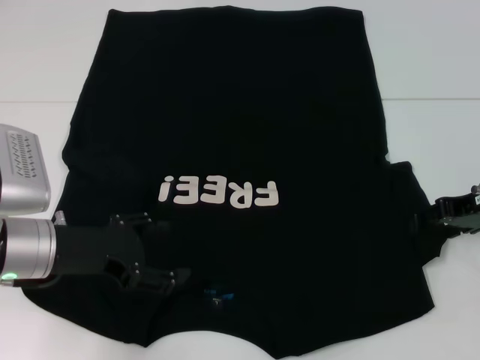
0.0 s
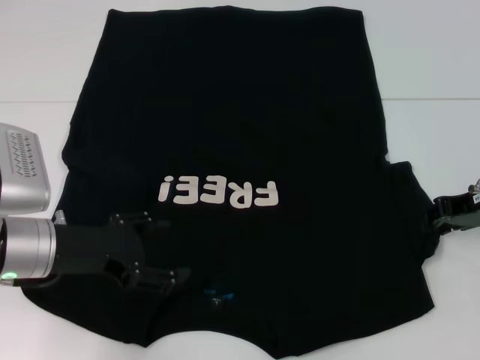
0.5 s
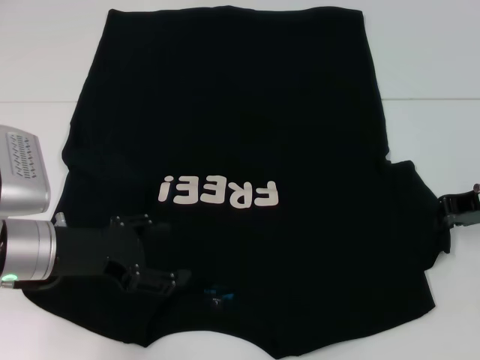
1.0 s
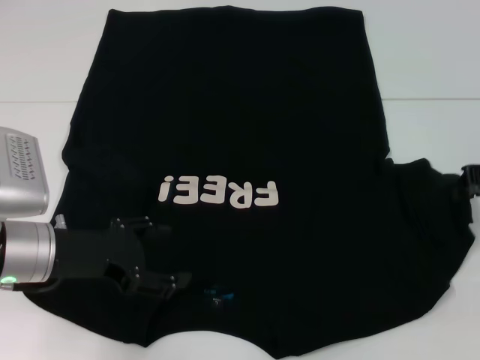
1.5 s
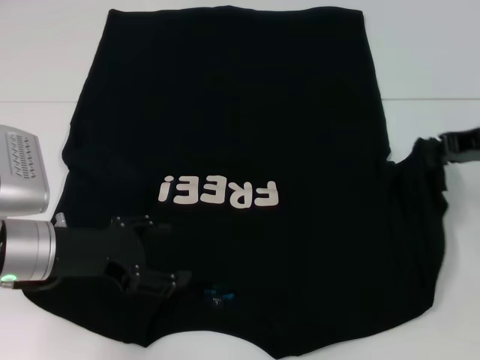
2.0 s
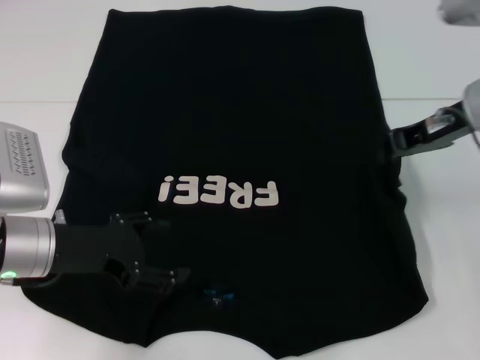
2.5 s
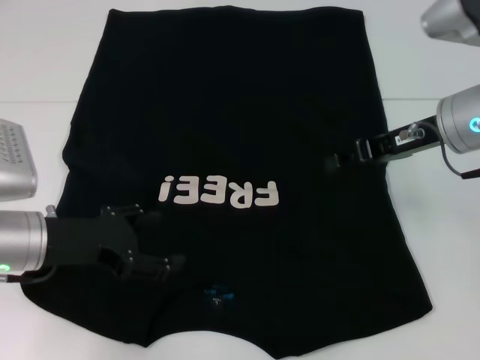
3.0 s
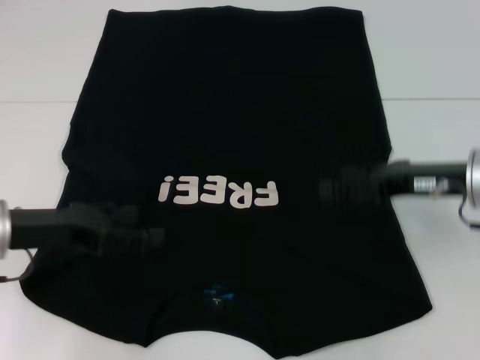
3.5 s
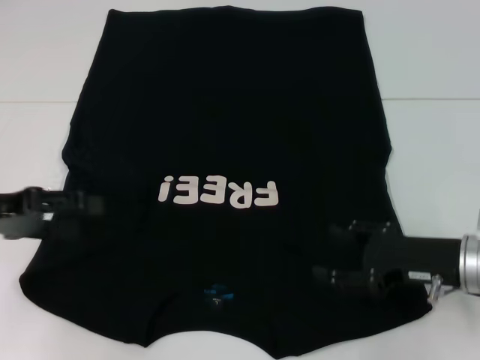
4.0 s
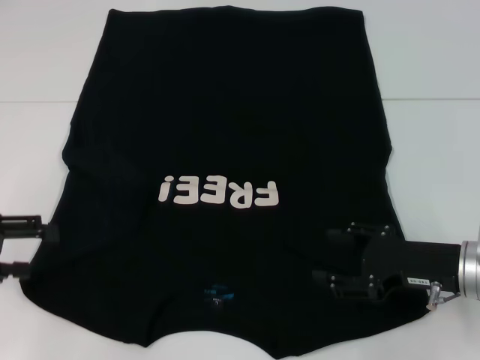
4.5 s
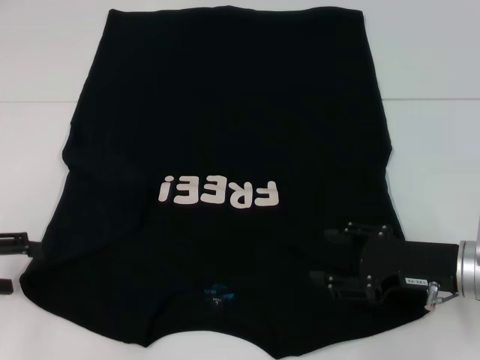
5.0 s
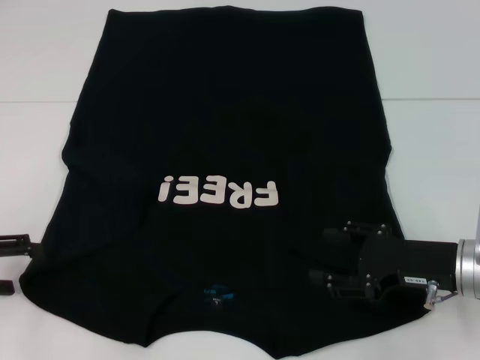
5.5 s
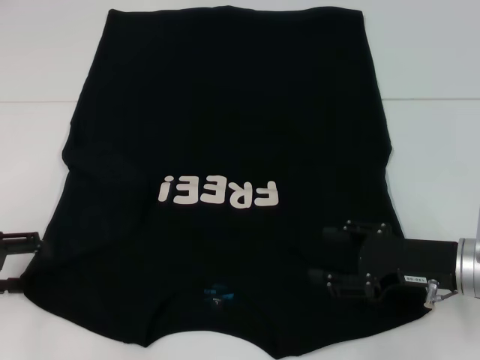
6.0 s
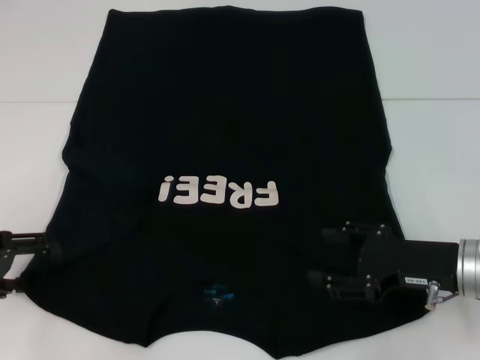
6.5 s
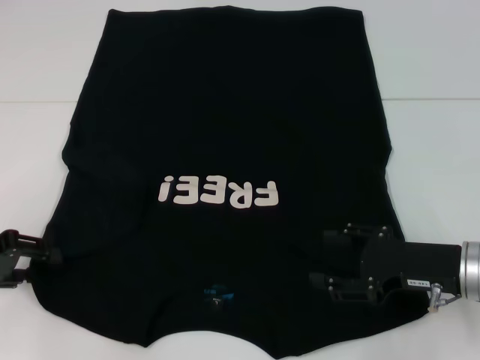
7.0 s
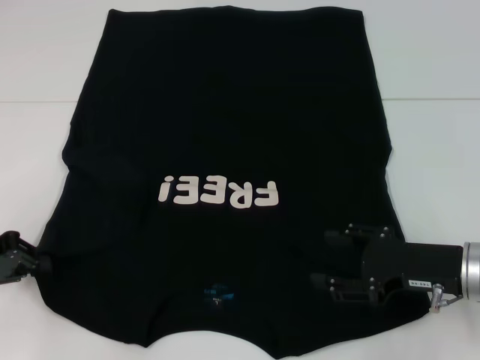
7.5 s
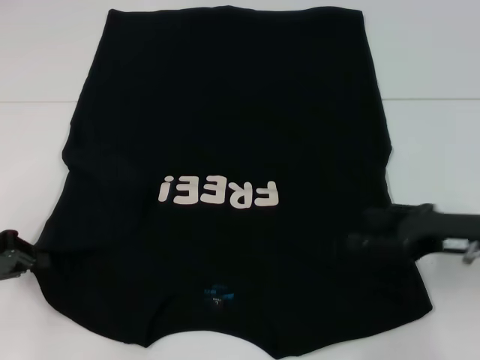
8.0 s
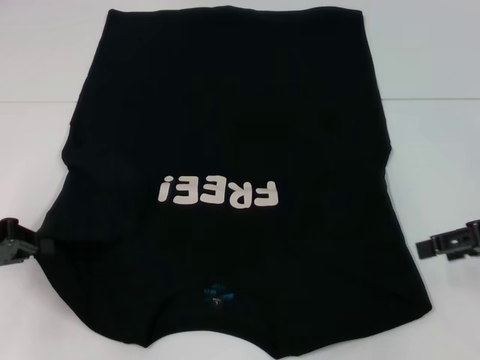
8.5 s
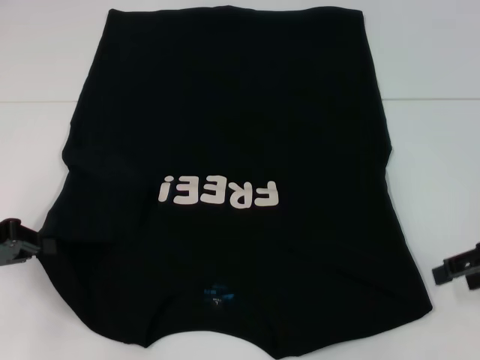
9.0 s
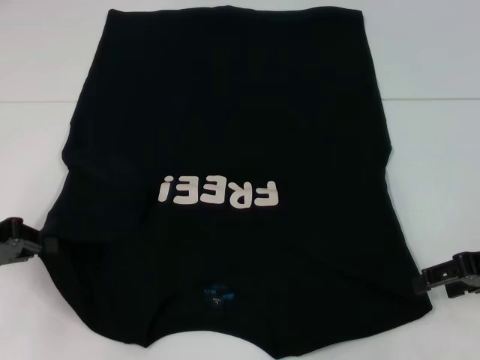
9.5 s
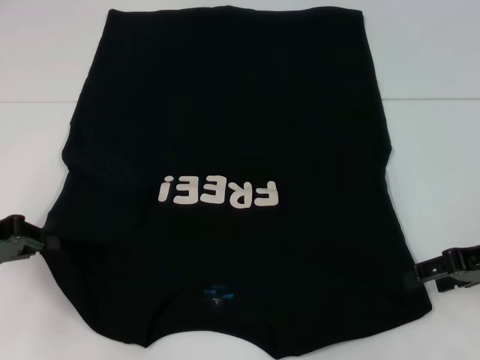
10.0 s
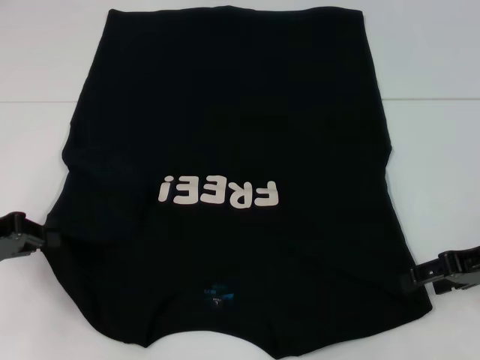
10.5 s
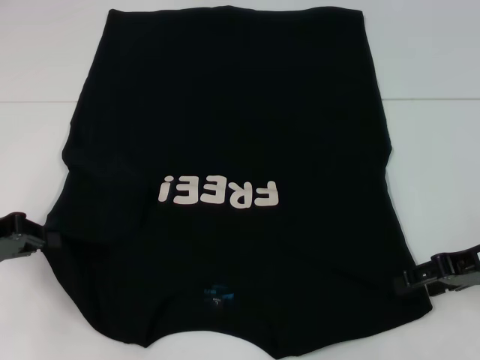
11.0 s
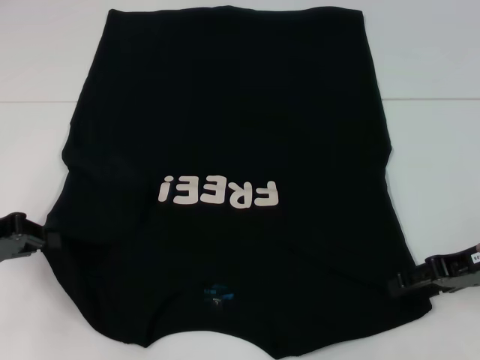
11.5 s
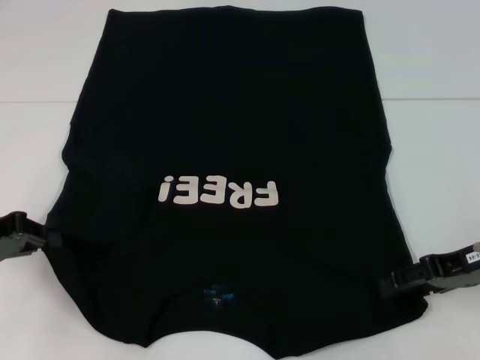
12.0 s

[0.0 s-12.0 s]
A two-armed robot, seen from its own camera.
Step, 0.0 to 3.0 s: Fold the bottom right sleeve with your right hand.
Step, 3.5 to 7.5 s: Grab the bottom left corner with your left hand.
0.0 to 2.0 s: The right gripper moves upward, about 5 cm, and closes up.
2.0 to 4.0 s: The right gripper shifts roughly 15 cm downward and backward, and opens its fingers. The left gripper goes some 10 cm to the left and upward.
4.0 to 6.0 s: The left gripper moves about 5 cm.
6.0 to 8.0 s: The left gripper closes.
10.0 to 12.0 s: The grippers stay close to where they were, moving slightly.

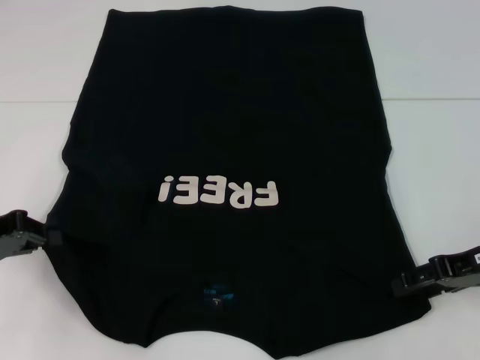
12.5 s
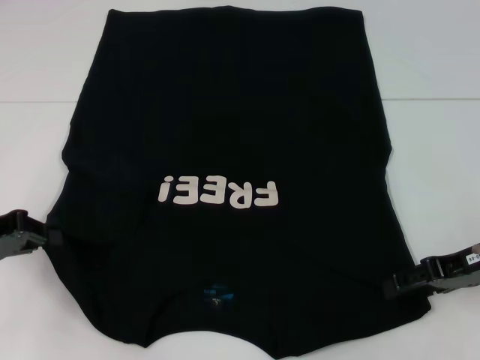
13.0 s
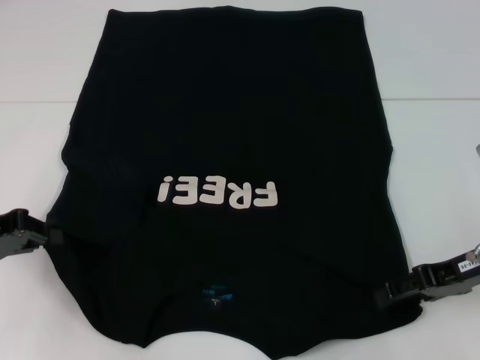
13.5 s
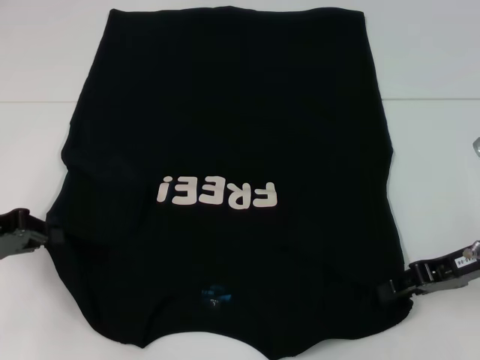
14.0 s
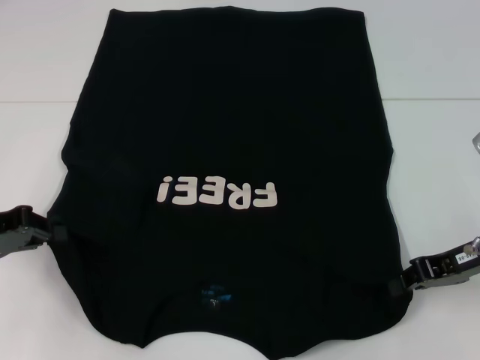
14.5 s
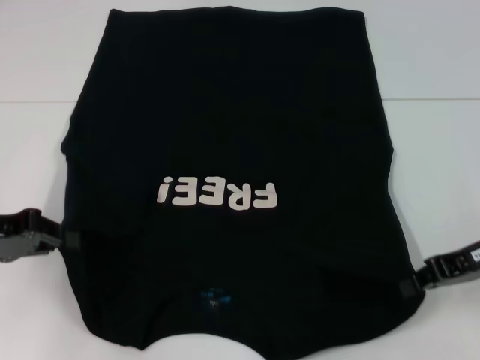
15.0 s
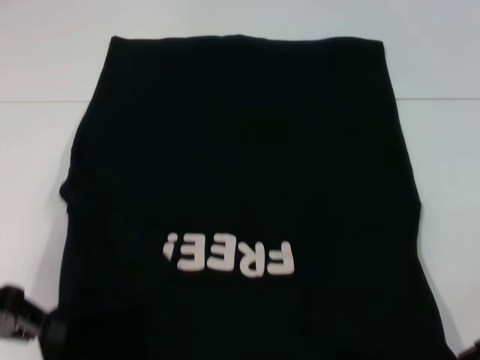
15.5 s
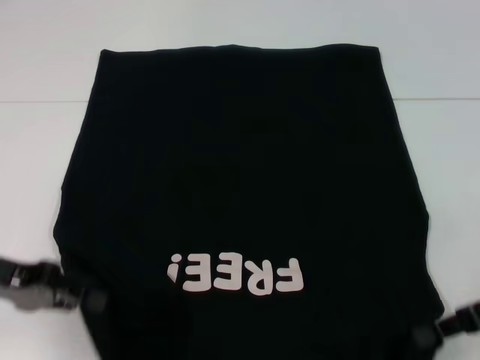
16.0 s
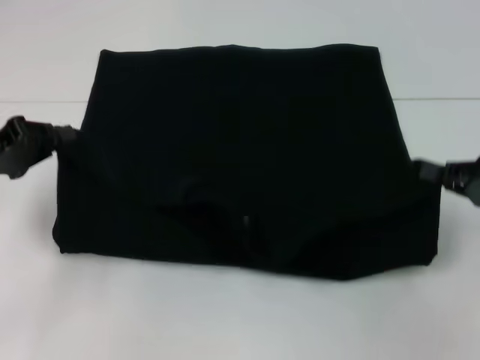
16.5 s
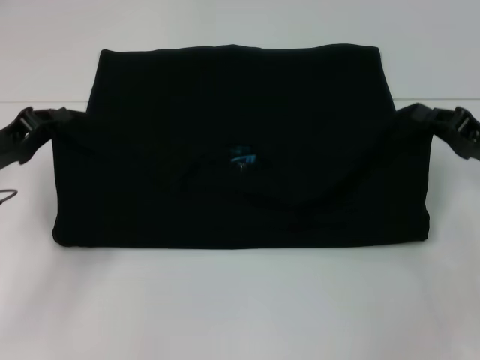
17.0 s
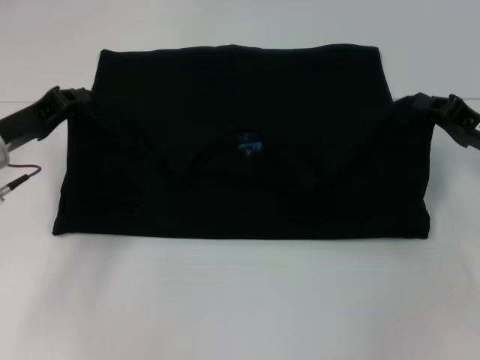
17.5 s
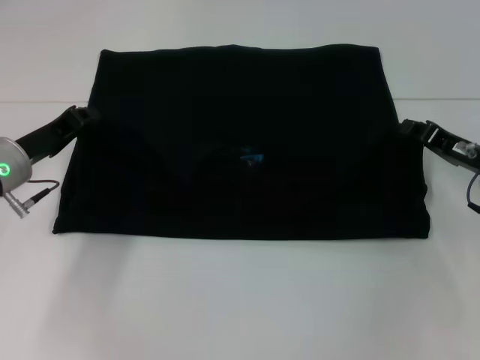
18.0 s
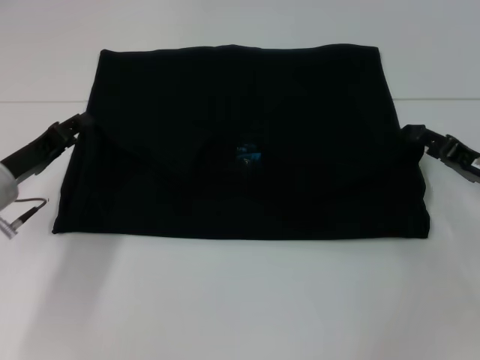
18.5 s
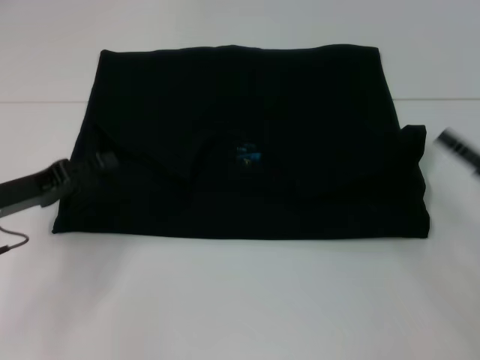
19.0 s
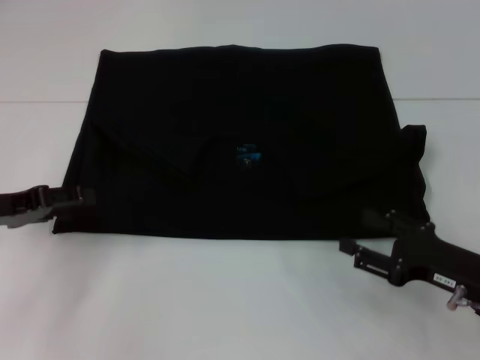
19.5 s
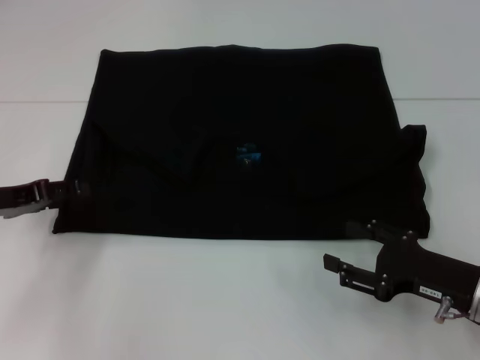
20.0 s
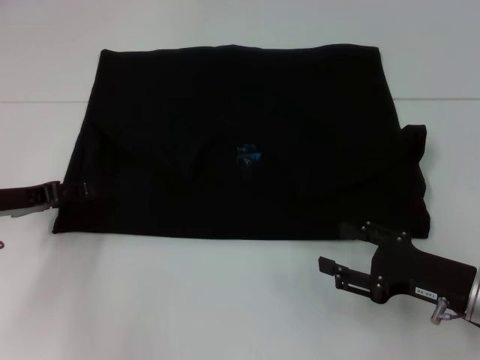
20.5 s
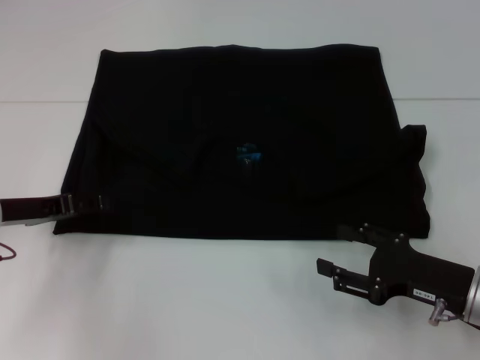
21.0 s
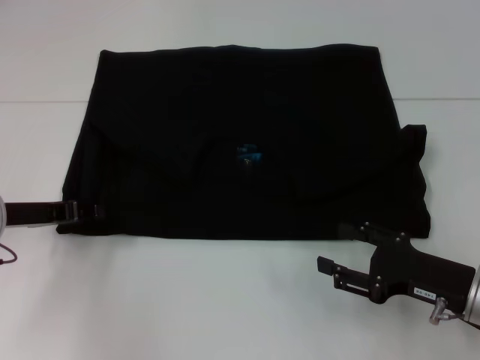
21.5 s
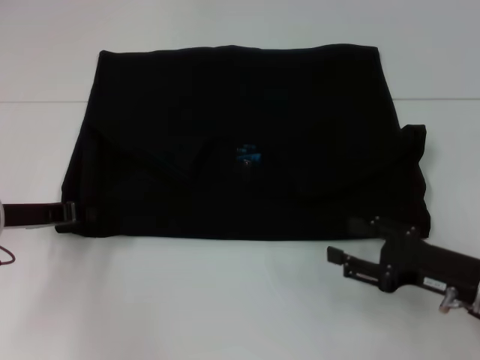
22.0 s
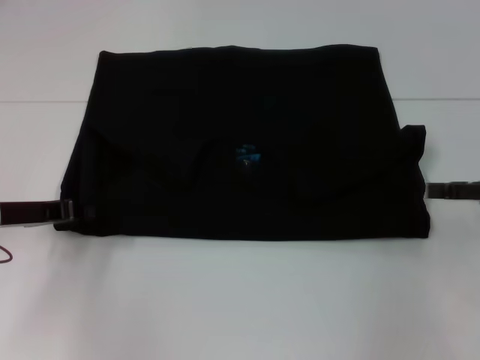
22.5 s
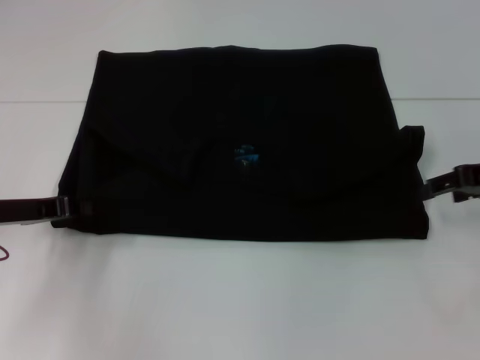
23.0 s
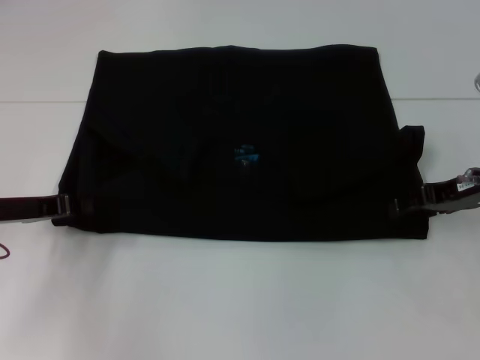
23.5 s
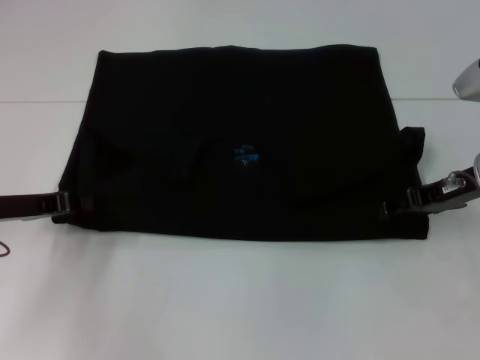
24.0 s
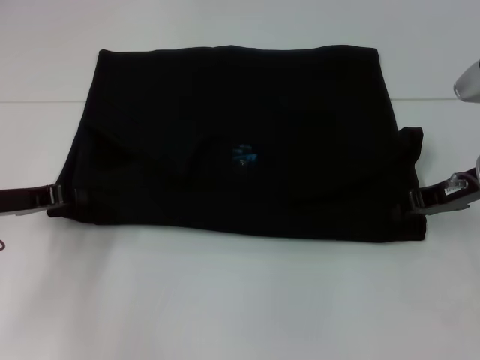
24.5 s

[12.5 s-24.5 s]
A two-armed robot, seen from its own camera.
Step, 14.0 to 18.0 s: Fold the clothes with your left hand.
Step, 14.0 to 18.0 s: Fold the clothes with your right hand.
12.5 to 14.5 s: The right gripper closes up.
14.5 to 16.5 s: The right gripper shifts about 5 cm to the right.
16.5 to 18.5 s: The left gripper heads downward and to the right, covering about 10 cm. The right gripper moves downward, approximately 5 cm, and opens.
18.5 to 20.5 s: The left gripper opens its fingers. Meanwhile the right gripper heads backward, covering some 10 cm.
20.5 to 22.5 s: The left gripper closes up, while the right gripper is displaced upward, to the right and forward by roughly 15 cm.
22.5 to 24.5 s: The right gripper travels to the left and forward by roughly 10 cm, and closes.

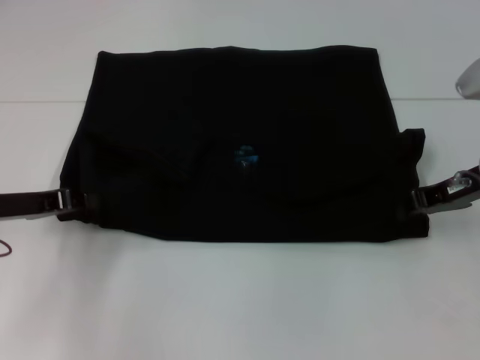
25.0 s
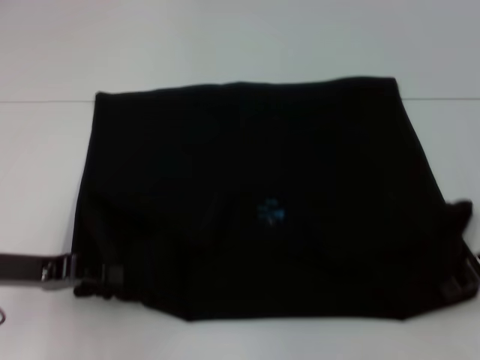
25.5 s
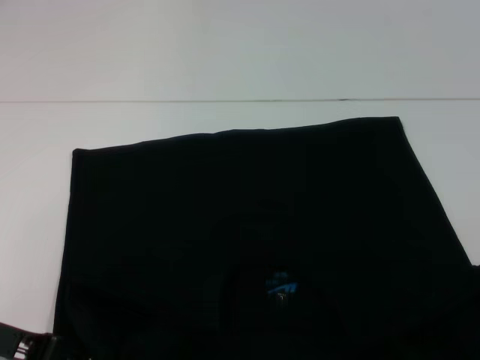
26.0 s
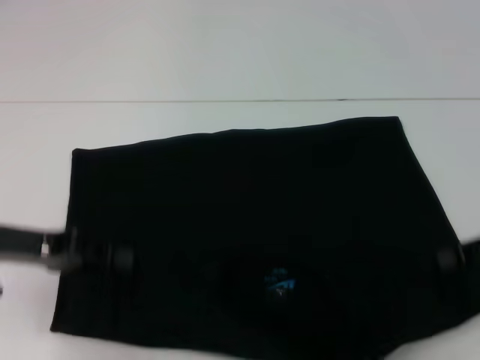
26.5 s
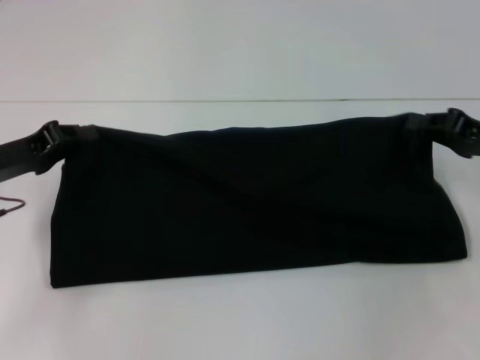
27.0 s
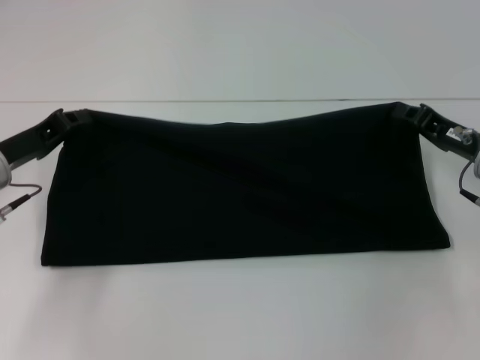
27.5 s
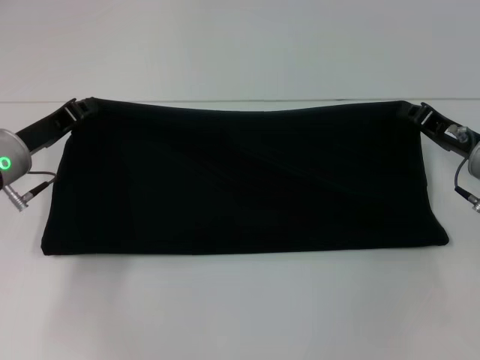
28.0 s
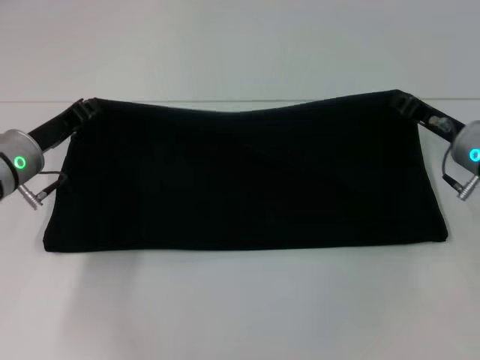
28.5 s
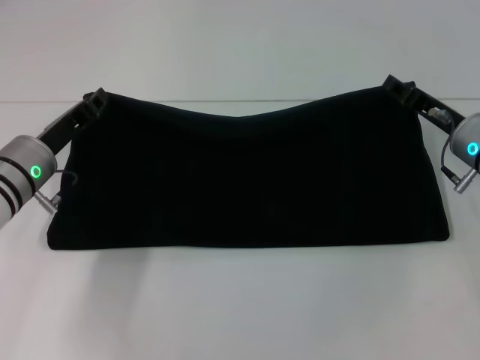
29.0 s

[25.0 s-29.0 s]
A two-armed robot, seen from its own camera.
25.0 to 27.0 s: The left gripper travels backward and back again, approximately 10 cm each way. Meanwhile the right gripper reaches some 10 cm backward, then returns.
27.0 to 29.0 s: The left gripper shifts approximately 5 cm to the right. Meanwhile the right gripper heads to the left, covering roughly 5 cm.
